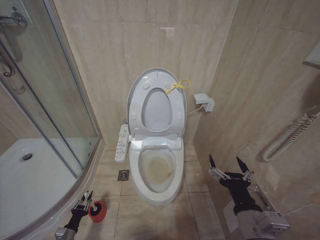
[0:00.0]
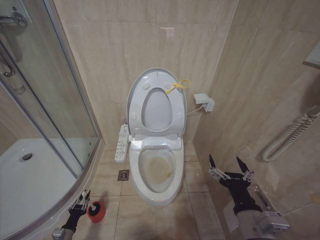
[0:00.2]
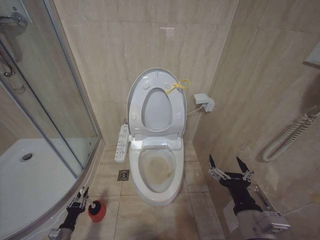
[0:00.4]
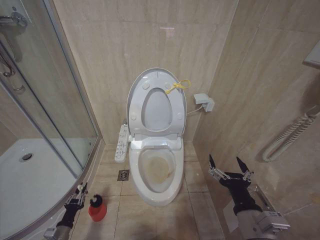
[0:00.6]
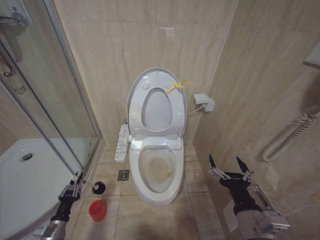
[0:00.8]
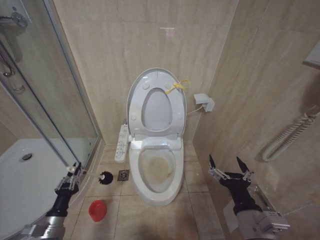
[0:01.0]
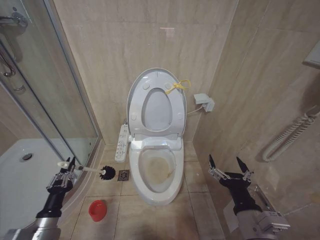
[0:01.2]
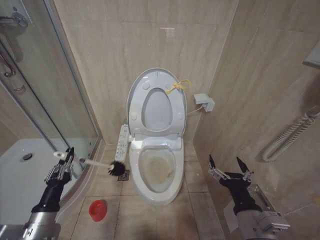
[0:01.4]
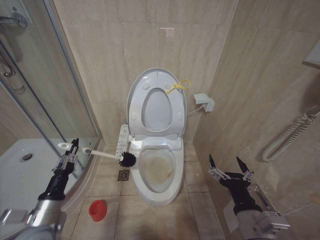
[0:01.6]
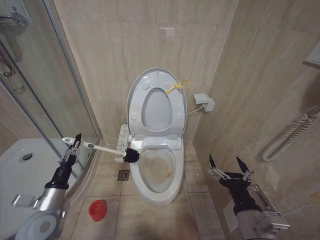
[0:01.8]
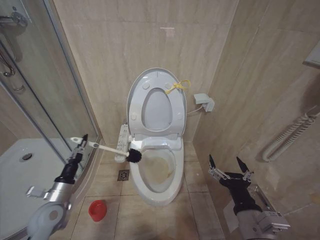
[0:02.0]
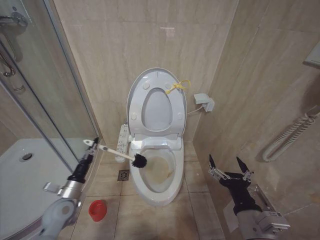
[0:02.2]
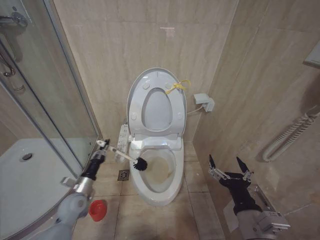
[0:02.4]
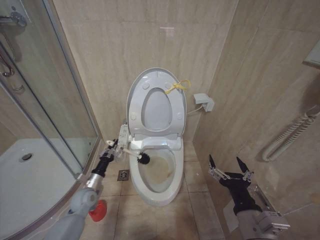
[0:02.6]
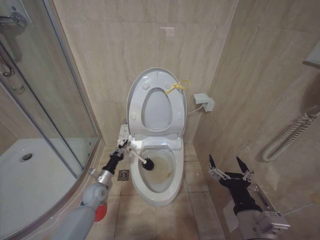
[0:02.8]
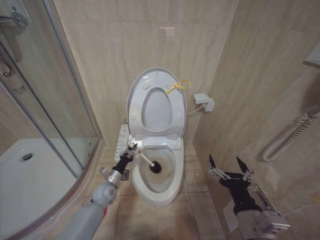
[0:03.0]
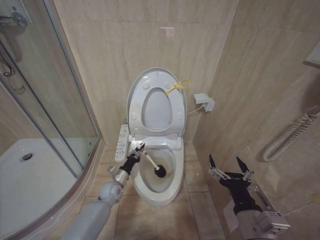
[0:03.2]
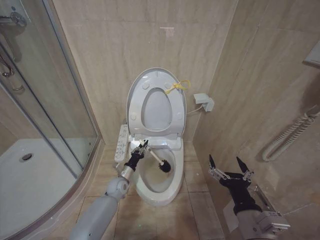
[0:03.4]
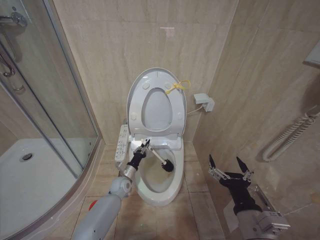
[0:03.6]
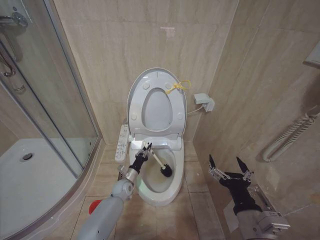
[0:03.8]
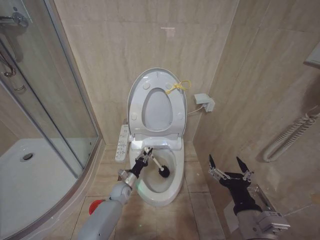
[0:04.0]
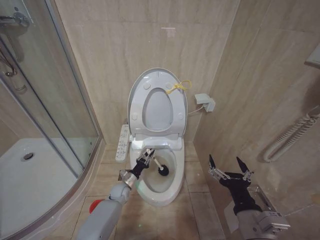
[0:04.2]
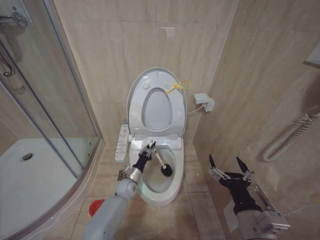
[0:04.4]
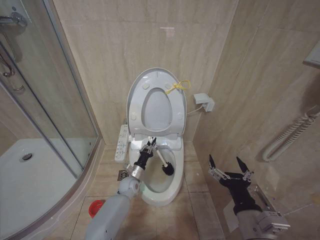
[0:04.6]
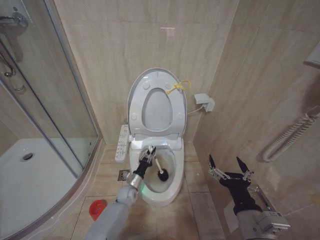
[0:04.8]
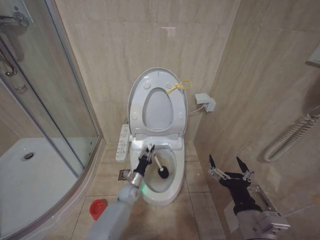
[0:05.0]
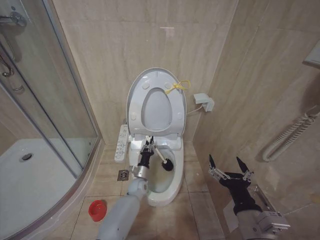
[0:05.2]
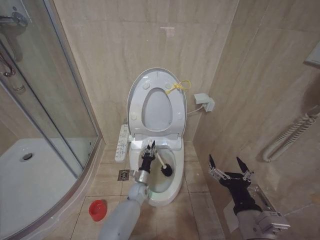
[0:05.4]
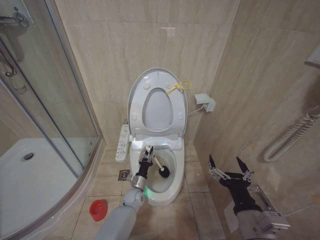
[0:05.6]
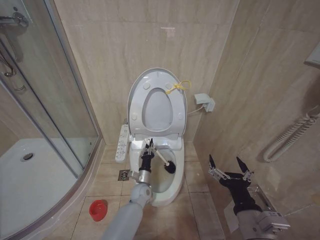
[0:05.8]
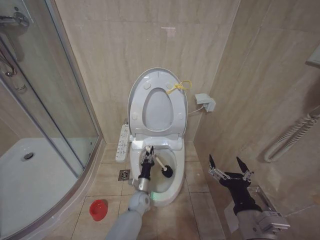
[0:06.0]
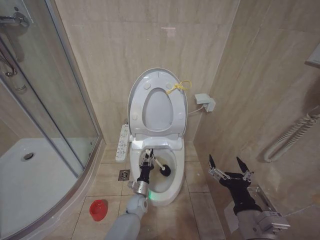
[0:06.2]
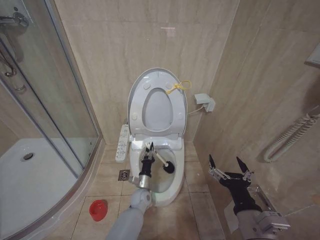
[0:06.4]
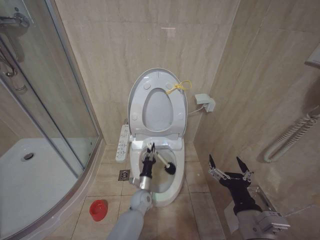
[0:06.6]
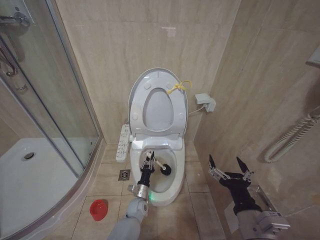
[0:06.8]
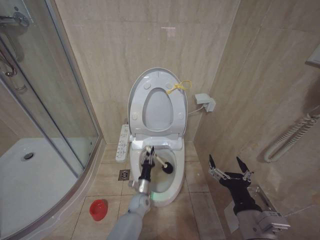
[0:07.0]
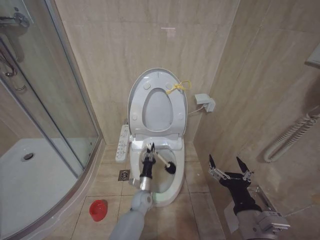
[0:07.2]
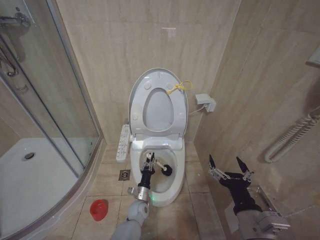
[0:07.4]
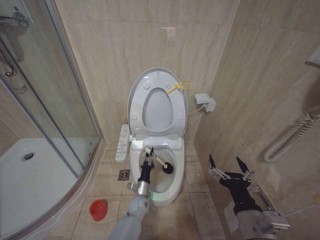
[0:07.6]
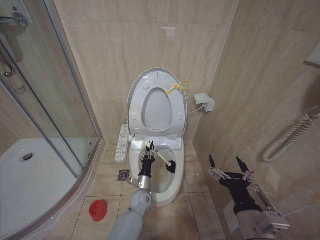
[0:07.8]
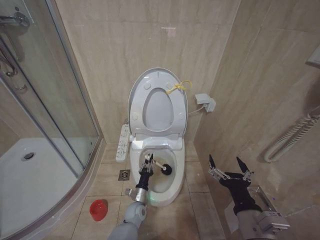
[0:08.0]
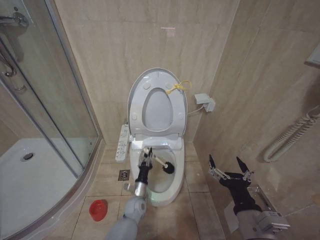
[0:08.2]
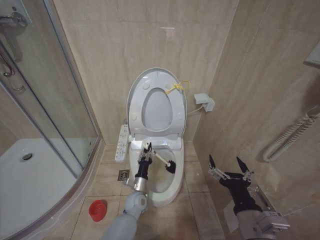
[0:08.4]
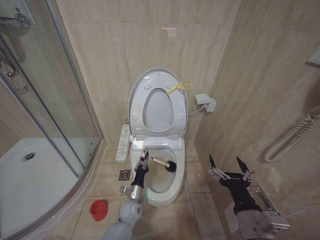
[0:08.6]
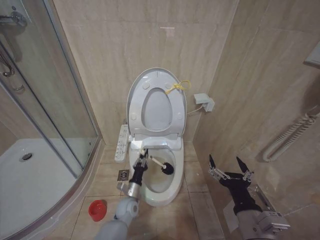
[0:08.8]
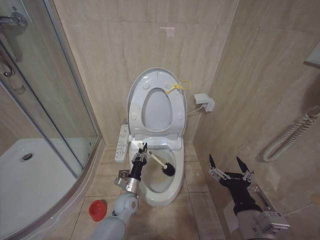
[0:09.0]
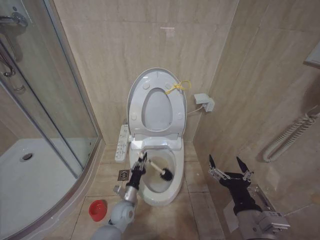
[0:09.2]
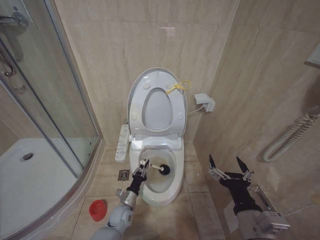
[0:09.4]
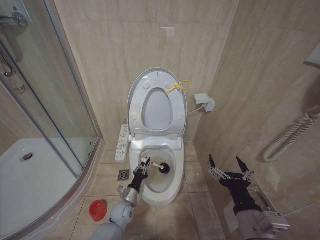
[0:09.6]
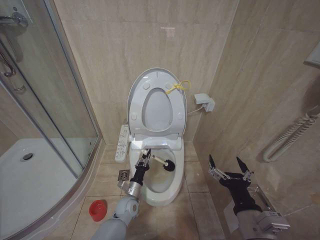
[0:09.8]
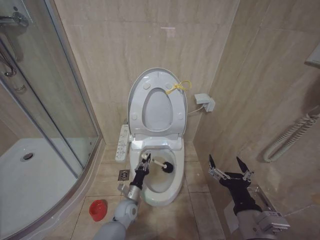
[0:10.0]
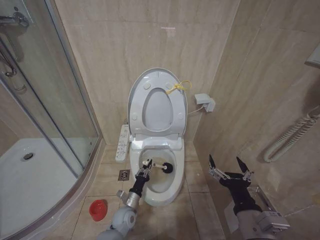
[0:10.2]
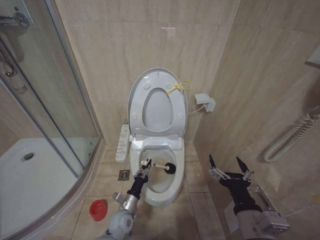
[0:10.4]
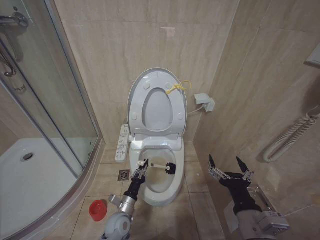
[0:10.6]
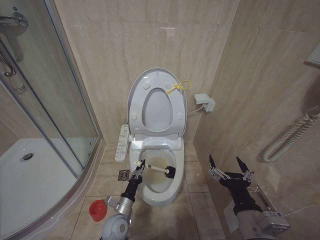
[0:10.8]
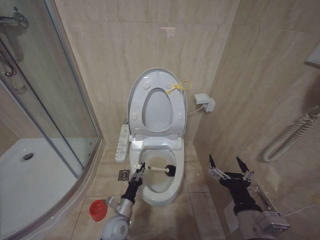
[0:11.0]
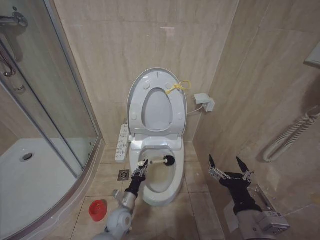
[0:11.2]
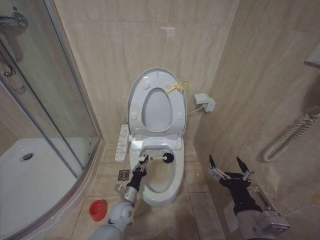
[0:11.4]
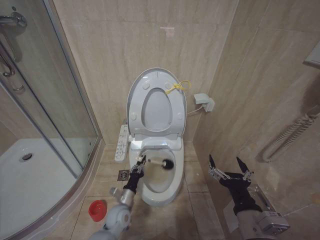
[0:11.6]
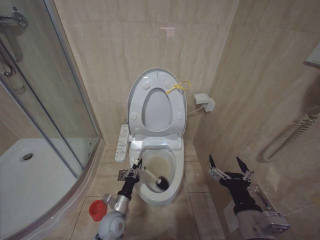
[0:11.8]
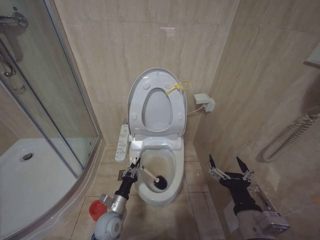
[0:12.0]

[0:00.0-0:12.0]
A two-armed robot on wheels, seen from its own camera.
Task of the whole recording: Open the toilet lid, clean the toilet bowl with a toilet brush, close the toilet lid, and flush.
0:00.0 to 0:01.6: The left gripper is displaced upward by approximately 30 cm.
0:01.6 to 0:03.0: The left gripper heads forward and downward, covering some 25 cm.
0:03.0 to 0:04.4: The left gripper moves to the right, roughly 10 cm.
0:04.4 to 0:06.0: The left gripper moves to the right, roughly 10 cm.
0:06.0 to 0:07.6: The left gripper goes up and down, some 5 cm each way, reversing 4 times.
0:07.6 to 0:09.0: The left gripper moves up and down over roughly 5 cm, changing direction 4 times.
0:09.0 to 0:10.4: The left gripper moves roughly 5 cm.
0:10.4 to 0:12.0: The left gripper shifts by about 5 cm.

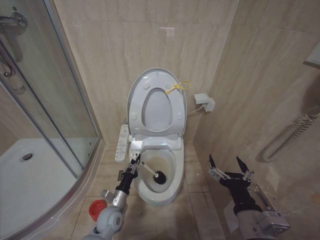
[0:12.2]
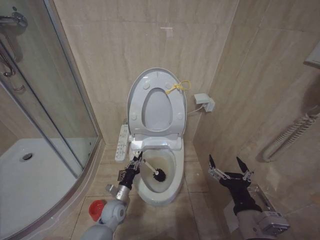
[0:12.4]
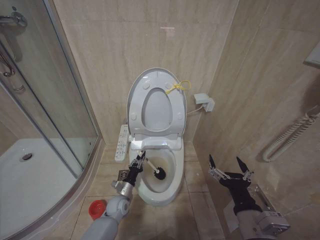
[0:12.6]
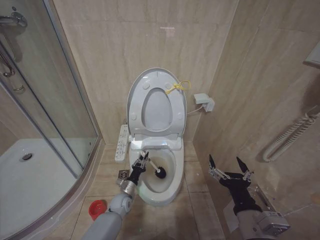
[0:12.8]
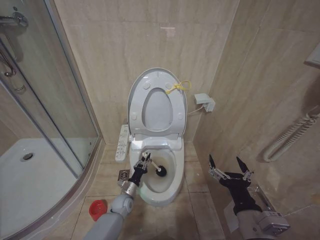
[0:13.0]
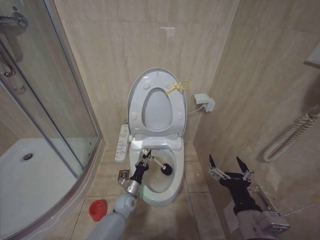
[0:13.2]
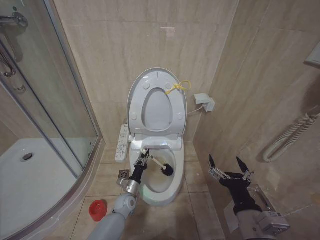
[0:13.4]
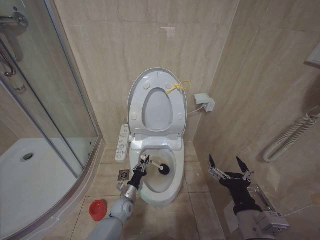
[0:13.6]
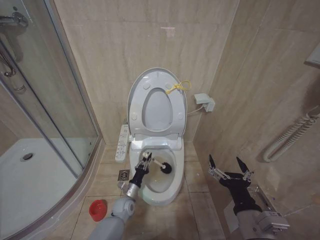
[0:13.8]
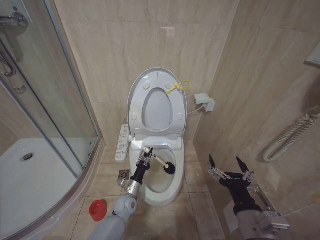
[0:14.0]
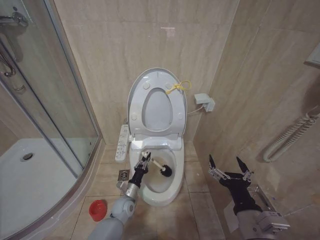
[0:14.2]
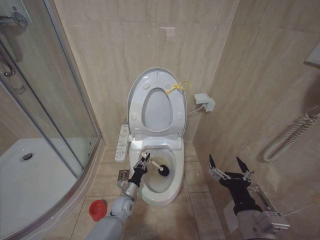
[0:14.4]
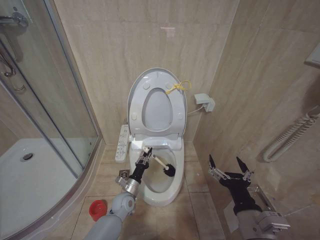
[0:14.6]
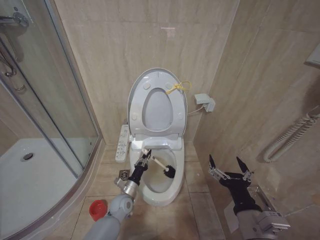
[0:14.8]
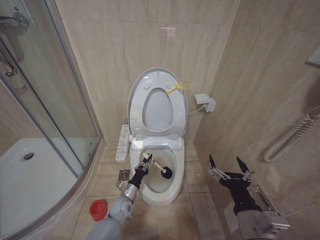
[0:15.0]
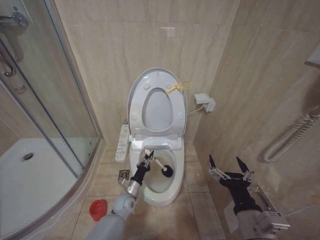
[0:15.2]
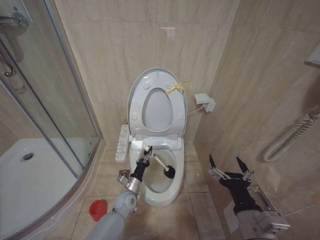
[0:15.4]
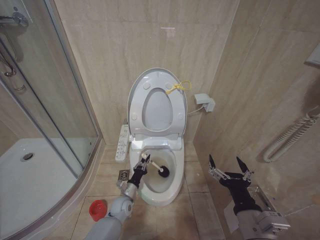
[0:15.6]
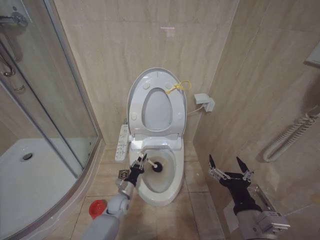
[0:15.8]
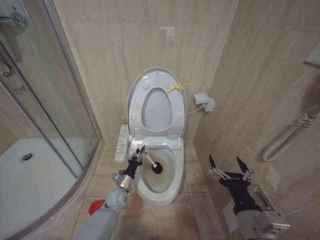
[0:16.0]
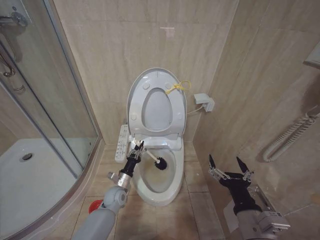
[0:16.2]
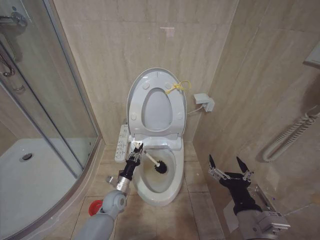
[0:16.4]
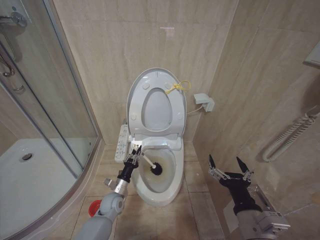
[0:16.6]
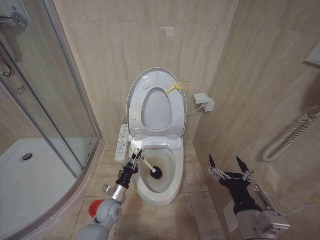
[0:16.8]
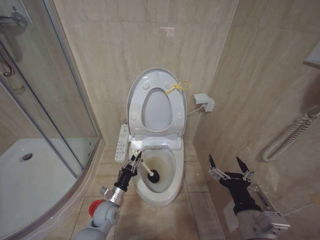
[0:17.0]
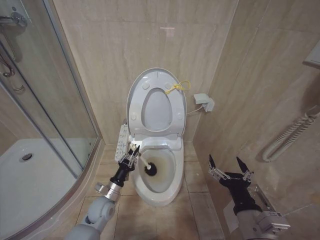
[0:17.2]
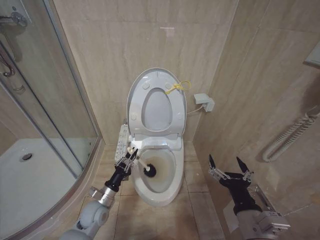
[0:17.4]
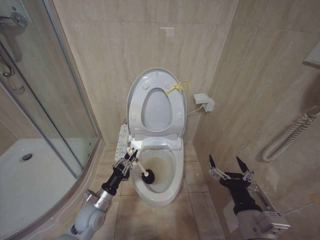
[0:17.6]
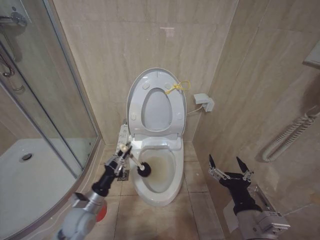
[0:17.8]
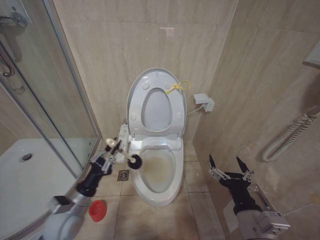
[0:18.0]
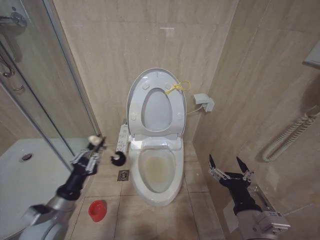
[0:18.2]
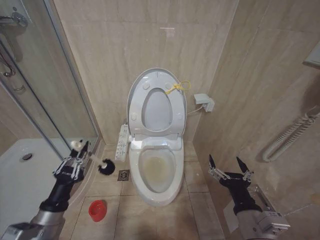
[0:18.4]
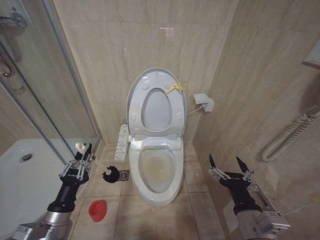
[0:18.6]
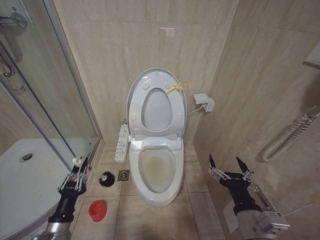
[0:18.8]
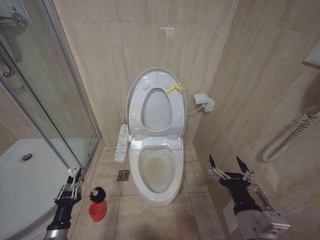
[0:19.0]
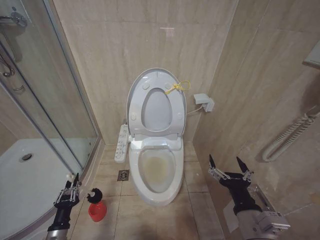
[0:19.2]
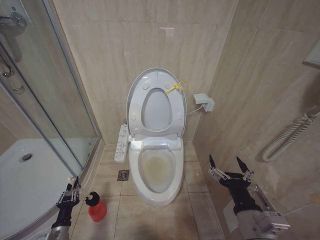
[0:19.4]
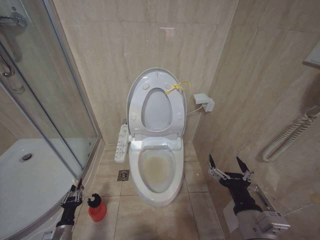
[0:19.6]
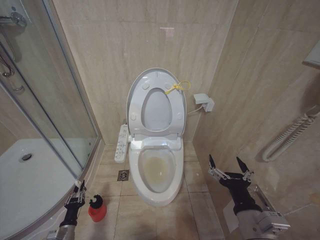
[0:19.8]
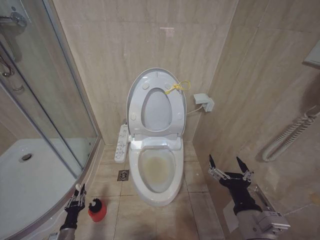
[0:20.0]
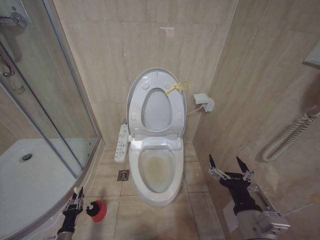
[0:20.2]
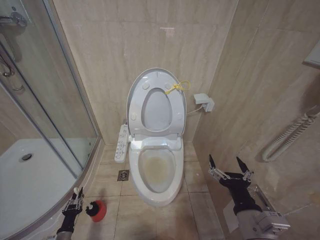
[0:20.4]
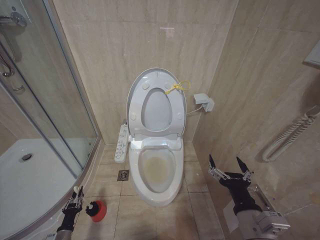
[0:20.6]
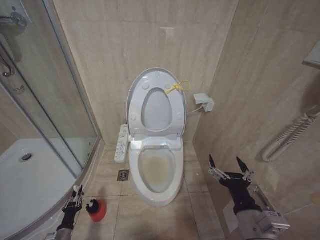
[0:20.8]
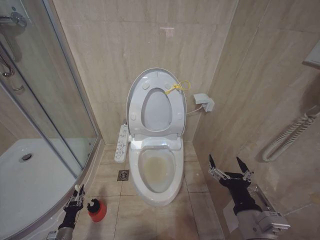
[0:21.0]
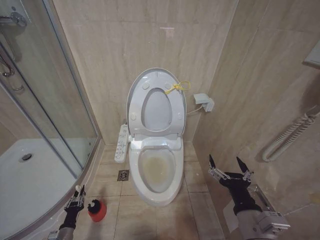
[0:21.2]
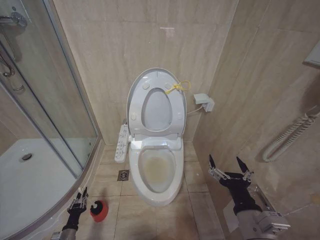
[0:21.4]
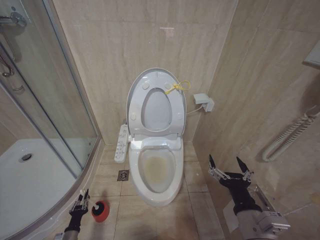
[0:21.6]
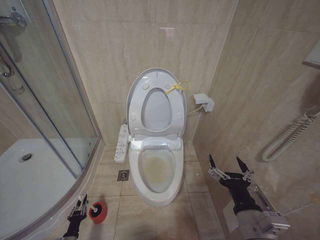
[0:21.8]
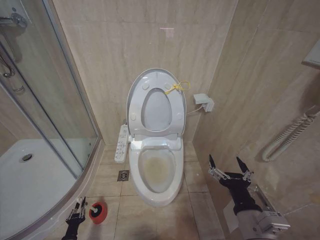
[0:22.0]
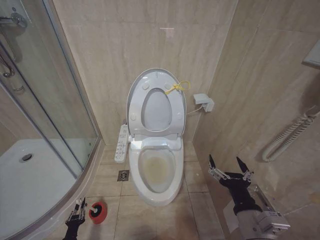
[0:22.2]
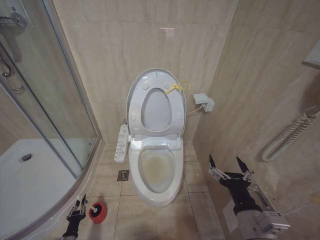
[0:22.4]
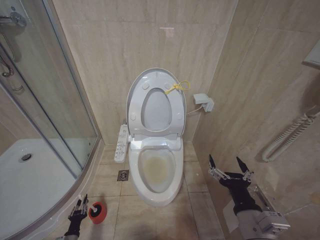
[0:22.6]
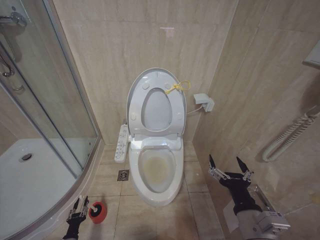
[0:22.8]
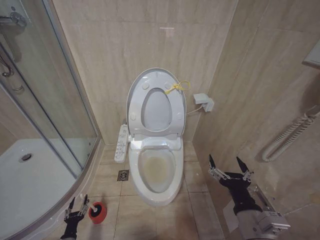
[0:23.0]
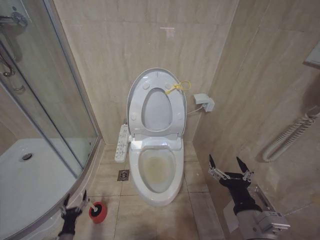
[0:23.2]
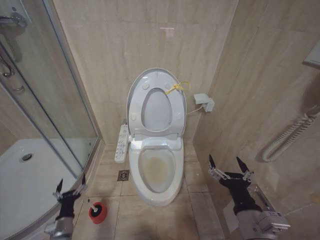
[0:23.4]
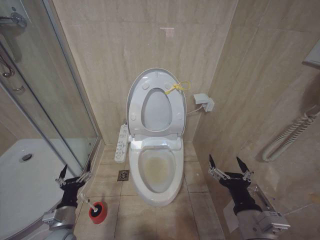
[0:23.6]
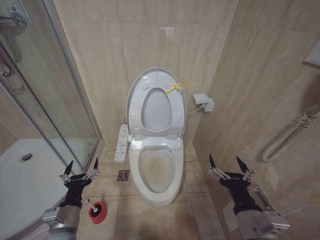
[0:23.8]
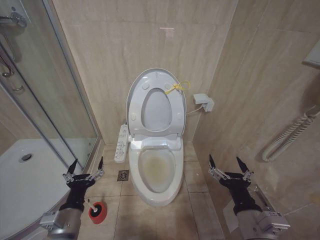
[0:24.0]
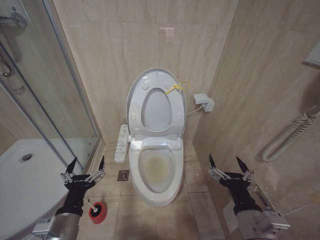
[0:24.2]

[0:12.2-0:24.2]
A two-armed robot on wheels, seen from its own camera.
Task of the whole recording: Open the toilet lid, clean the toilet bowl with a toilet brush, close the toilet lid, and flush.
0:12.2 to 0:13.8: The left gripper moves downward and forward, about 10 cm.
0:15.2 to 0:16.6: The left gripper shifts by about 5 cm.
0:16.6 to 0:18.2: The left gripper moves upward, backward and to the left, approximately 25 cm.
0:18.2 to 0:19.8: The left gripper goes about 25 cm downward.
0:19.8 to 0:21.2: The left gripper moves some 5 cm.
0:22.6 to 0:24.2: The left gripper is displaced upward and to the right by some 40 cm, and opens.
